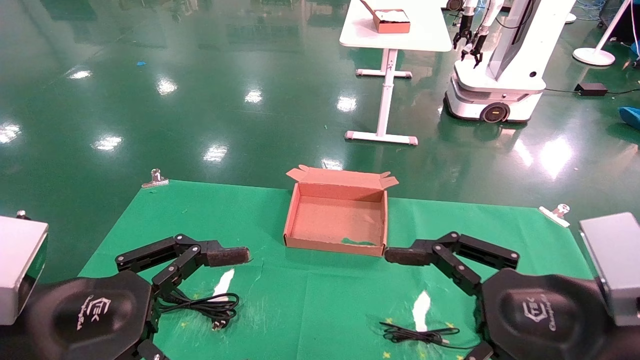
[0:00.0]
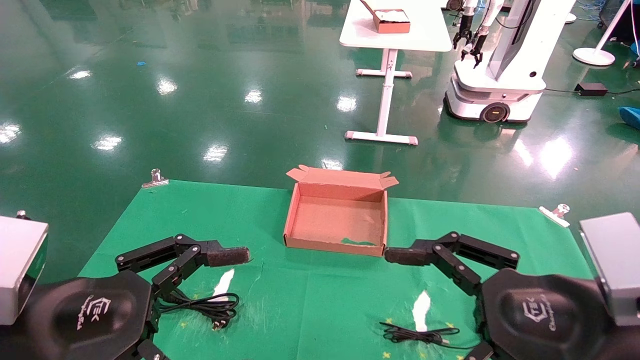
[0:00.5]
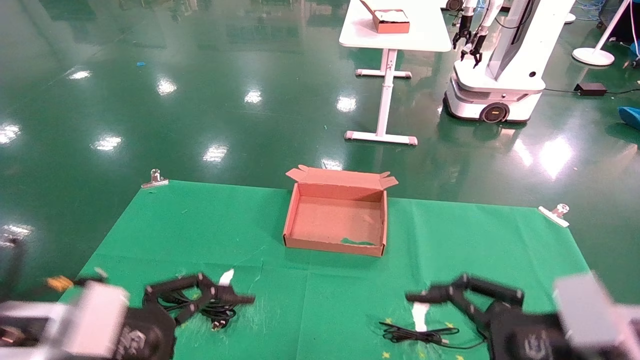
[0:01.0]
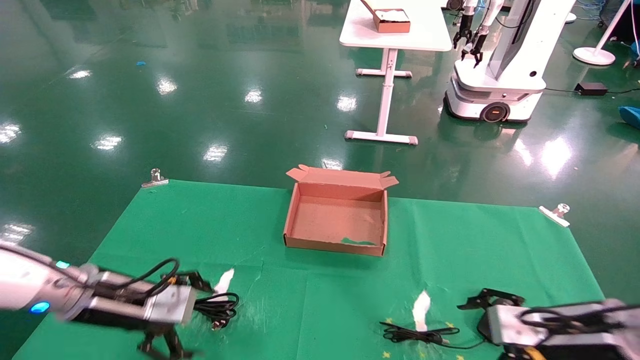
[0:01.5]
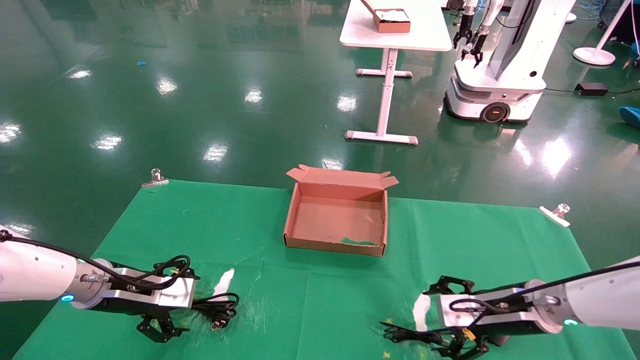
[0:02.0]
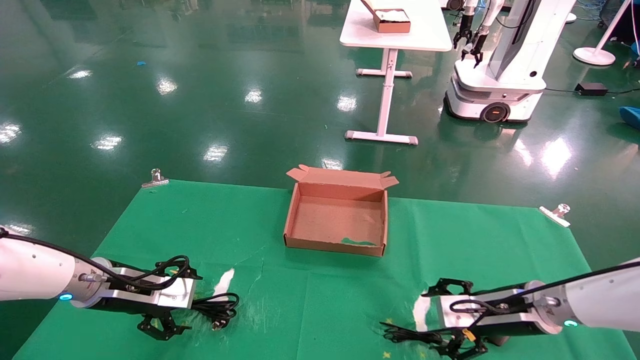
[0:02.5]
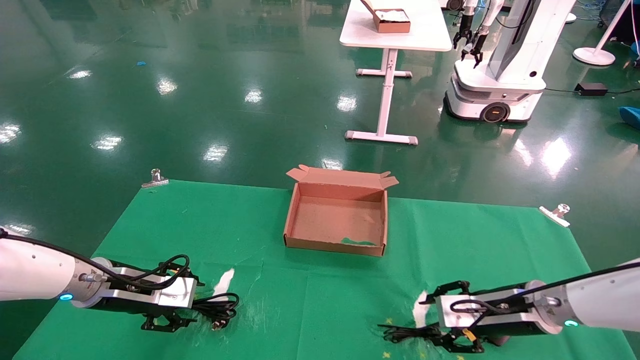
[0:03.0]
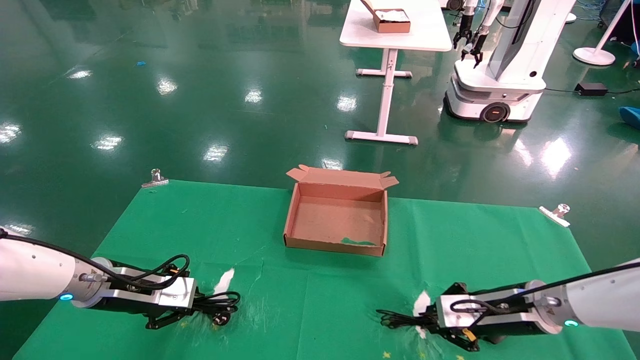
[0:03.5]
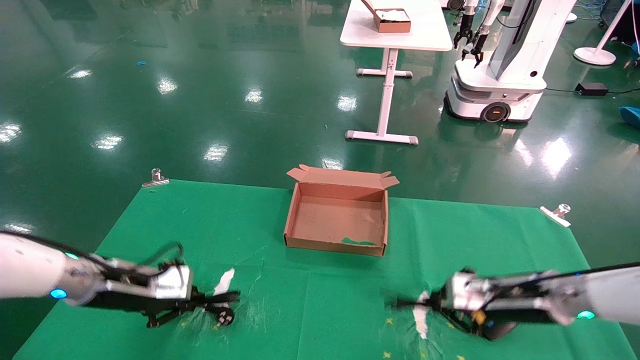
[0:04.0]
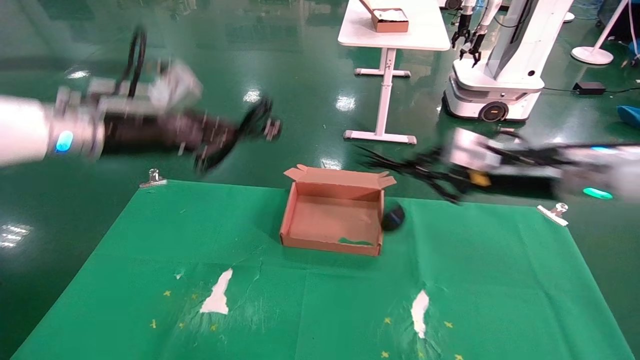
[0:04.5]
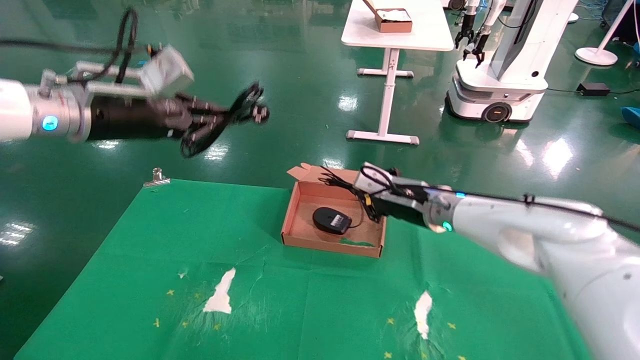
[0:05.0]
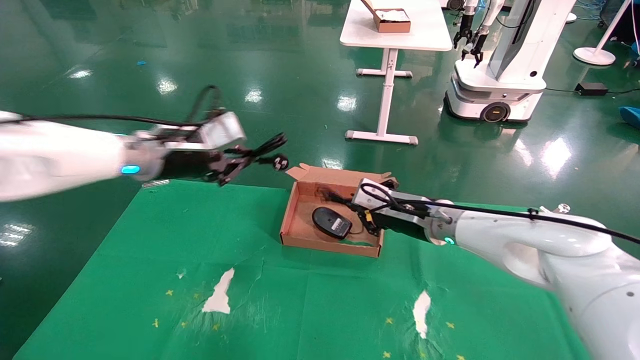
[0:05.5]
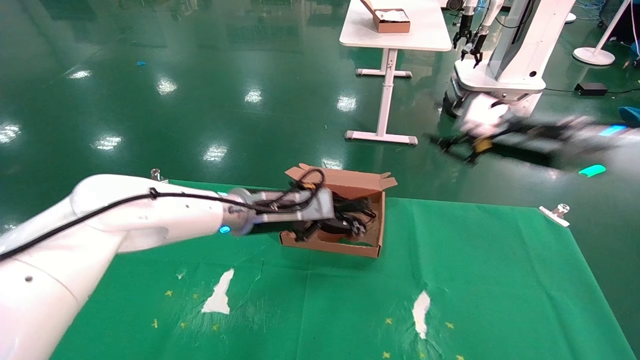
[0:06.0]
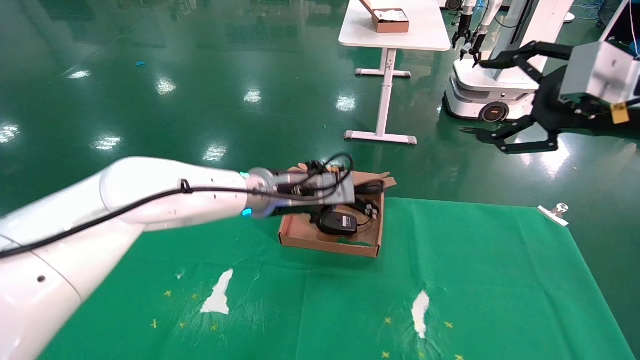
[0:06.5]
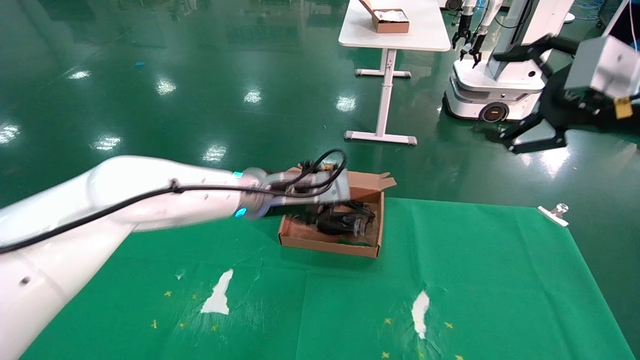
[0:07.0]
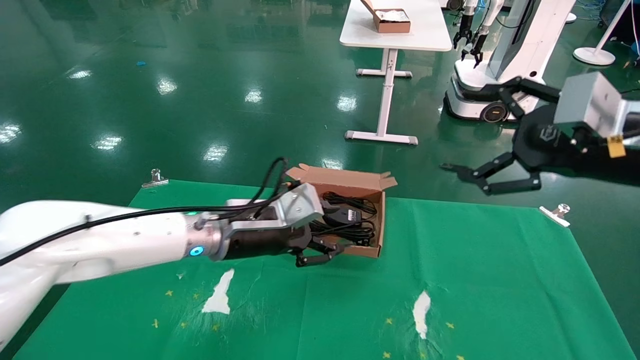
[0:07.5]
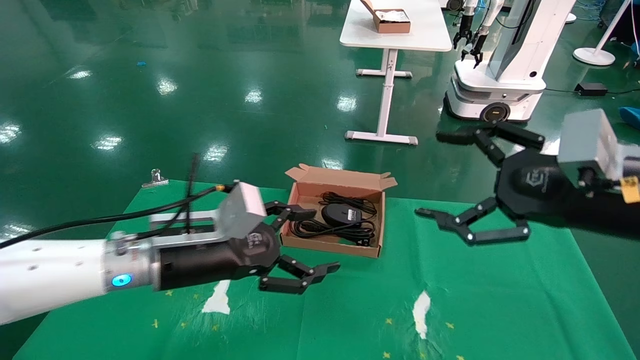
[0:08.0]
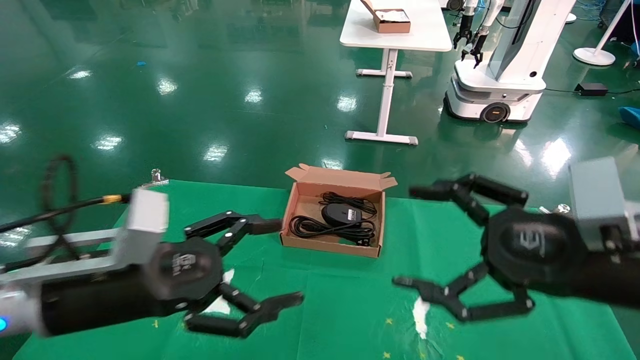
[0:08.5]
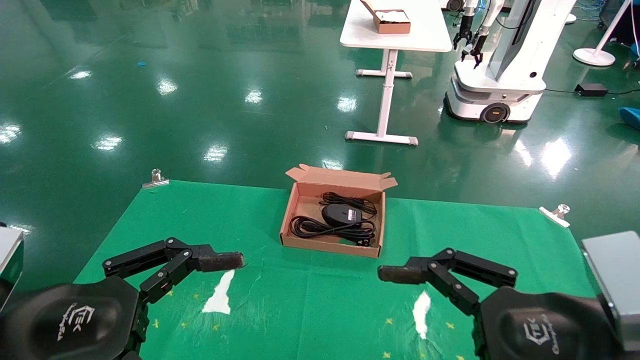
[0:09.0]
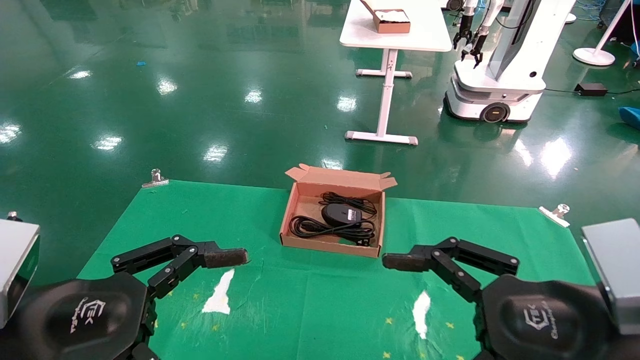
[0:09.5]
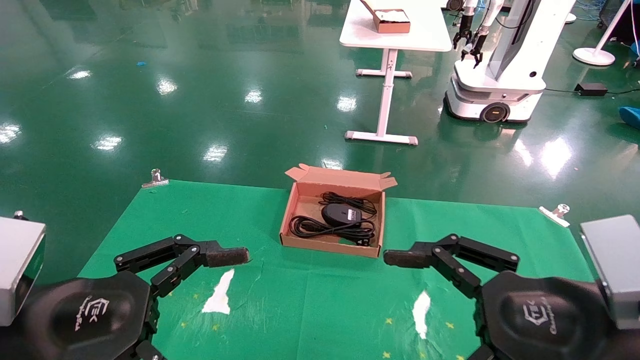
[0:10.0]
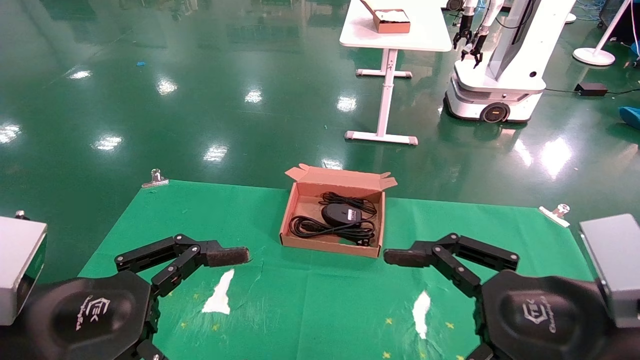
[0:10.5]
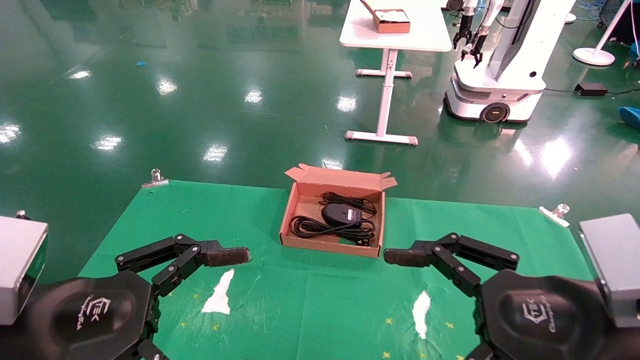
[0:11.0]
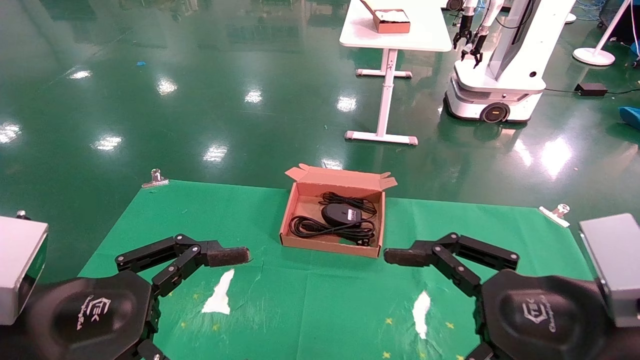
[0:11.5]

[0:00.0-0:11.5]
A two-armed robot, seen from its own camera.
Step, 0:01.5 to 0:04.0: Grab and lift both the mouse and power cord from the accessory packaging area at the same time.
Step, 0:04.5 to 0:07.0: Place the mouse and power cord into the box.
0:00.0 to 0:02.0: The left gripper moves forward, some 25 cm, while the right gripper moves forward and downward, some 25 cm.
0:02.0 to 0:04.0: The right gripper closes up. Meanwhile the left gripper closes its fingers.
0:04.0 to 0:06.0: The right gripper goes up and down, roughly 20 cm each way, reversing 2 times; the left gripper goes roughly 20 cm to the right.
0:06.0 to 0:07.5: The left gripper travels backward by some 5 cm, and opens. Meanwhile the right gripper travels backward by approximately 10 cm, and opens up.
0:07.5 to 0:09.5: The left gripper goes roughly 25 cm backward and to the left, and opens. The right gripper shifts approximately 20 cm downward, backward and to the left.
0:09.5 to 0:11.5: The two grippers keep their place.
